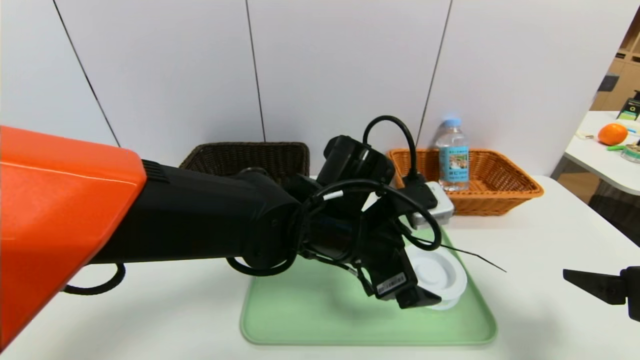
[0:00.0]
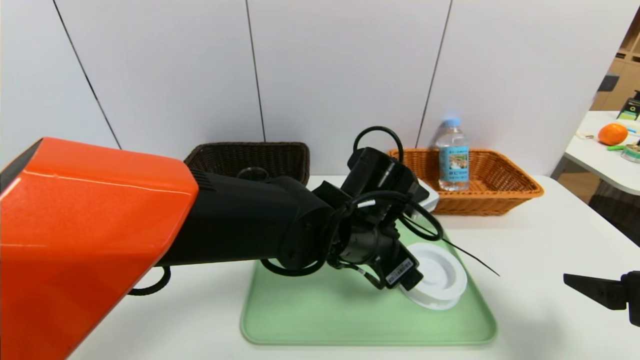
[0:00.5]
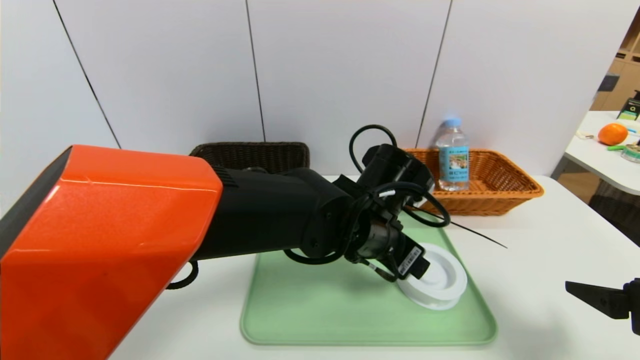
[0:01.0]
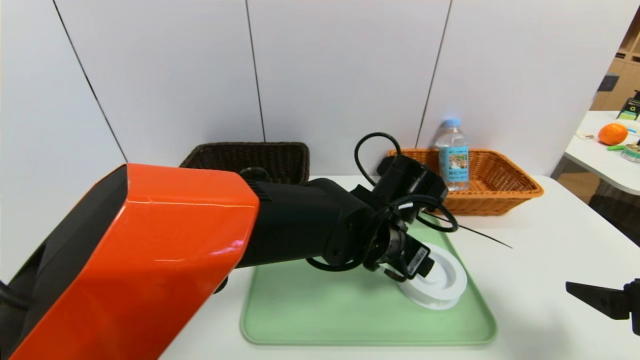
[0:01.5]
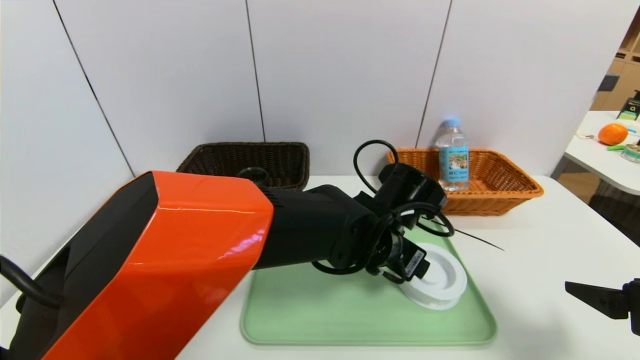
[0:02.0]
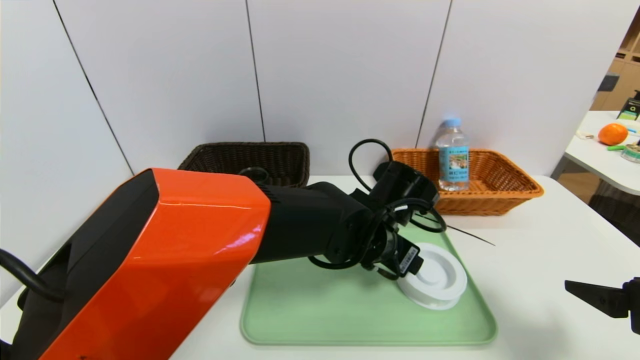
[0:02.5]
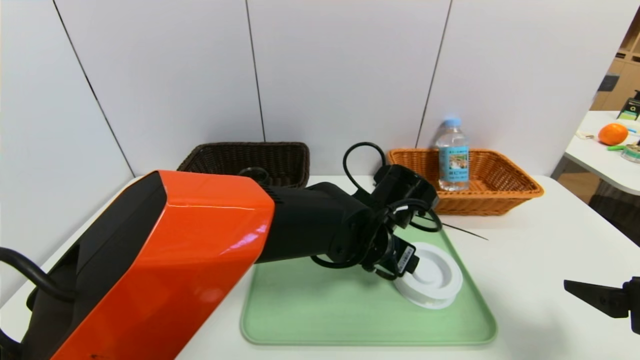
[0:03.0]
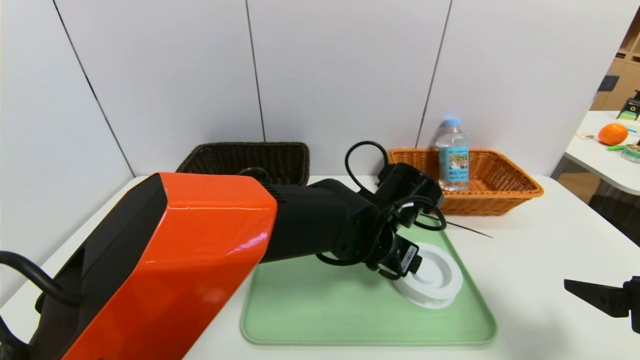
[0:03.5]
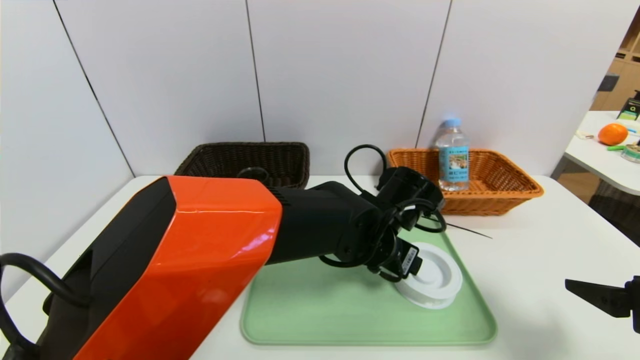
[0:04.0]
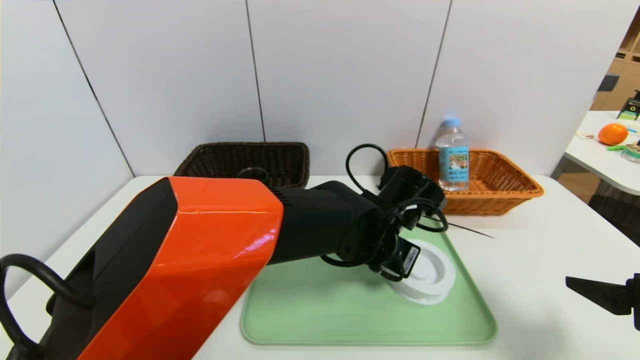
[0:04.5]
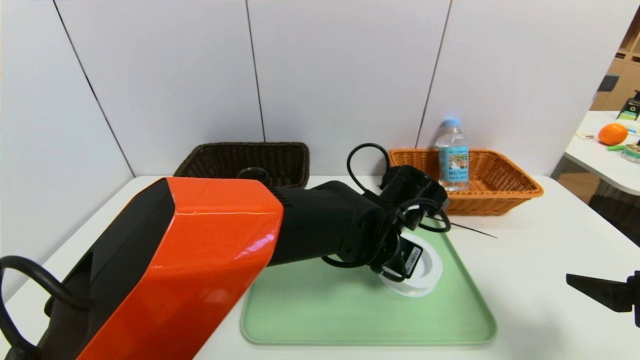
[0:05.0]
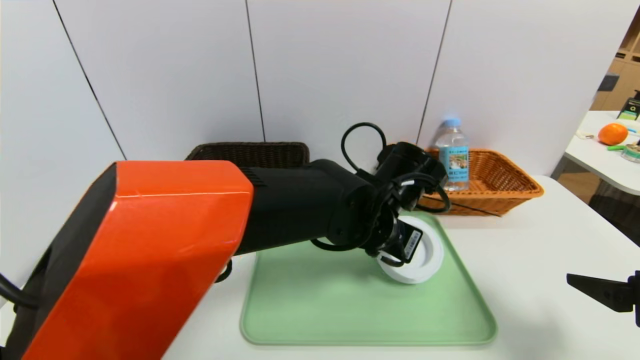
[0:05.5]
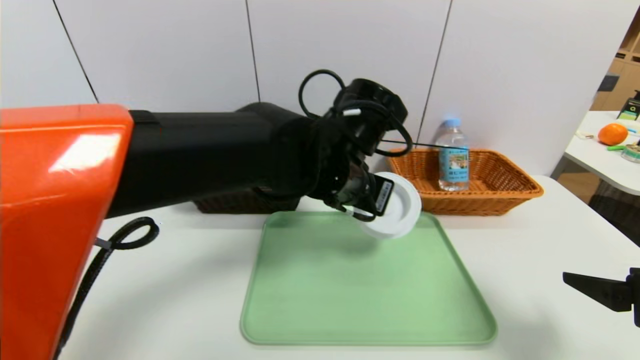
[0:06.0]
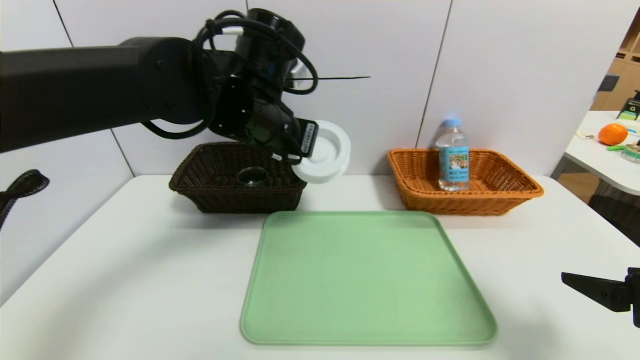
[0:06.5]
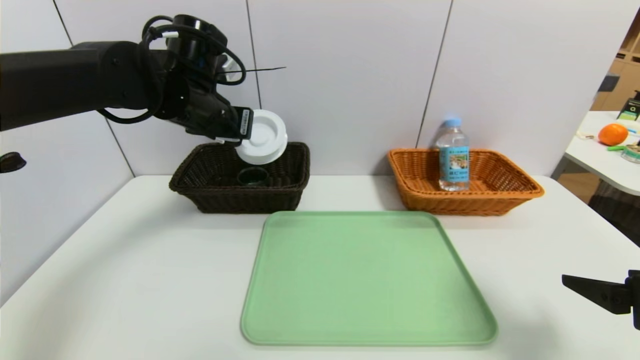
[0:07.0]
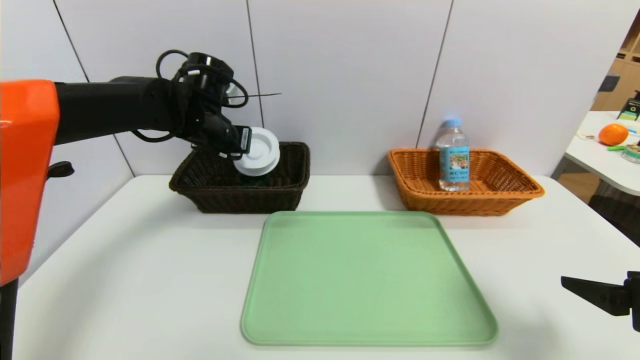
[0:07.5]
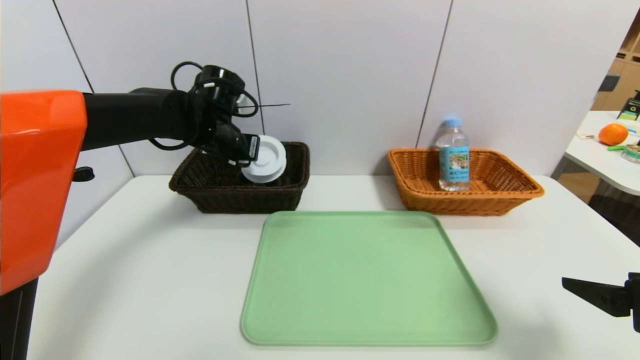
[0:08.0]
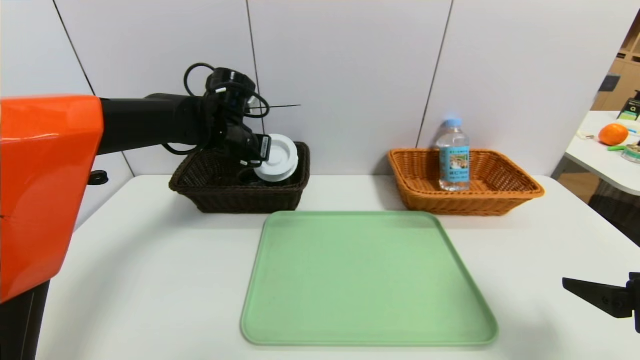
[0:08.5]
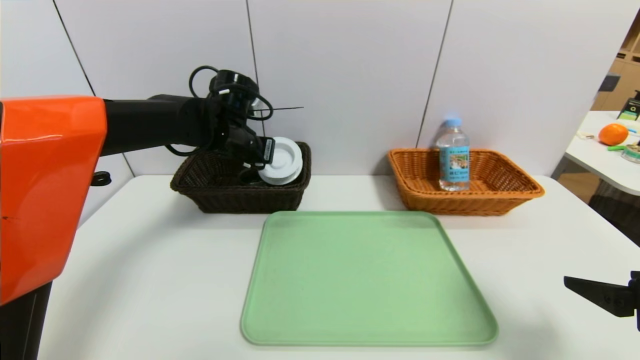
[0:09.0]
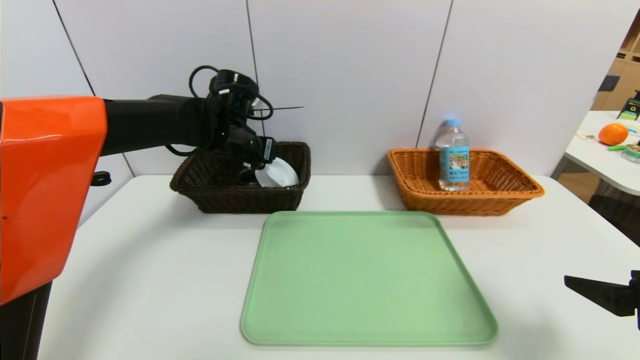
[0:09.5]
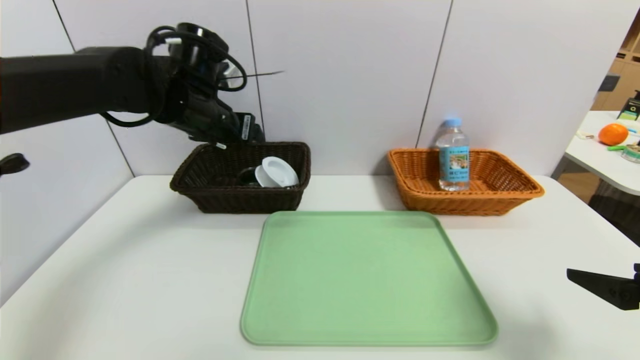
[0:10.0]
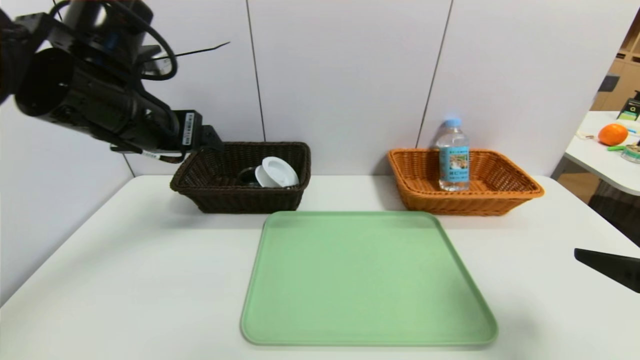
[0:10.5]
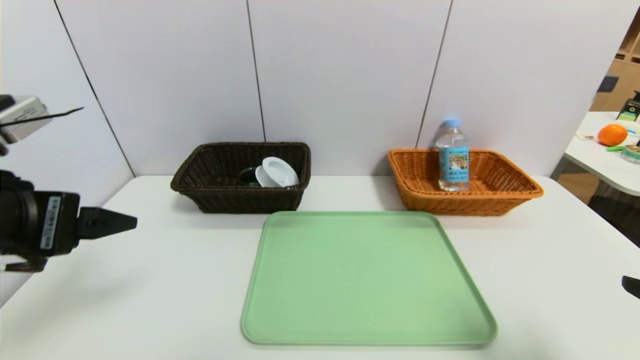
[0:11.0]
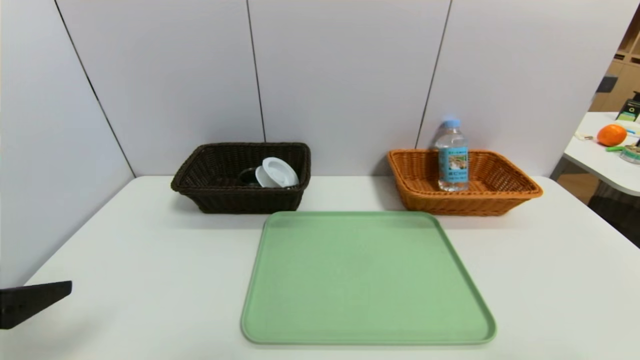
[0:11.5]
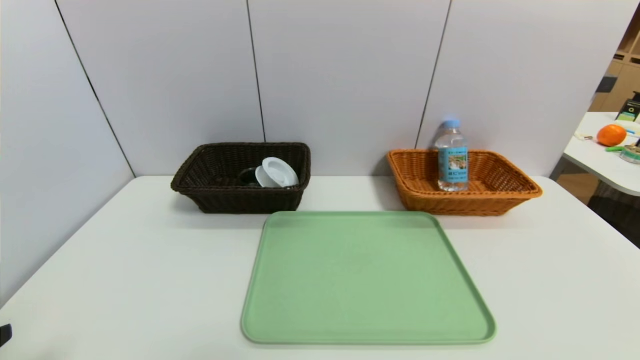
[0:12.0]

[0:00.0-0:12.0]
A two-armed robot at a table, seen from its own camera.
Task of the whole recording: place the food in the right basket with the right gripper, and place the non food items in the left basket with the left gripper.
Step, 0:00.0 to 0:09.5: Grasp the tape and put it in the left basket.
0:00.0 to 0:02.0: The left gripper shifts some 5 cm to the right.
0:02.0 to 0:04.0: The grippers move only a little.
0:04.0 to 0:06.0: The left gripper heads upward and to the left, covering some 10 cm, and closes up.
0:06.0 to 0:08.0: The left gripper shifts some 25 cm to the left and forward.
0:08.0 to 0:10.0: The left gripper heads upward and backward, covering roughly 5 cm, and opens.
0:10.0 to 0:12.0: The right gripper goes about 15 cm backward. Meanwhile the left gripper heads backward, covering some 35 cm.
